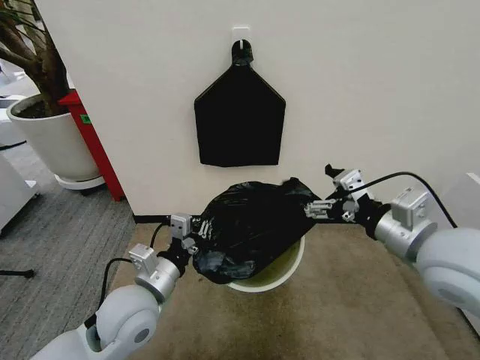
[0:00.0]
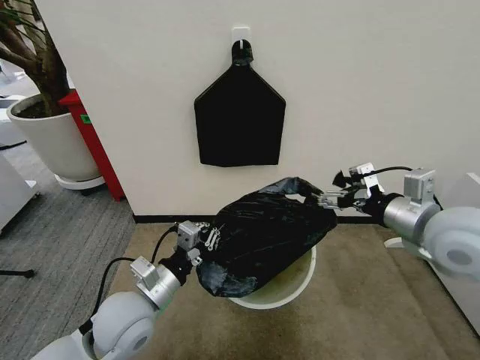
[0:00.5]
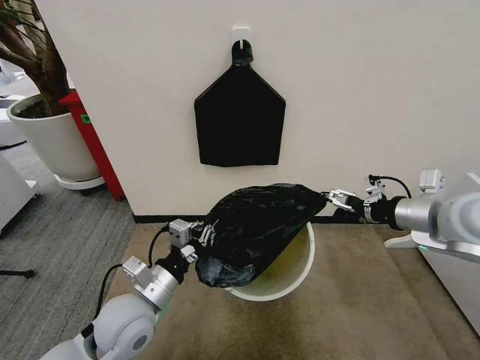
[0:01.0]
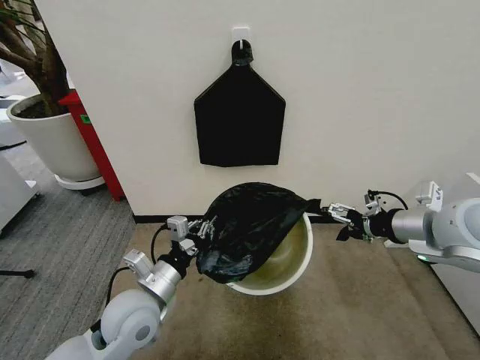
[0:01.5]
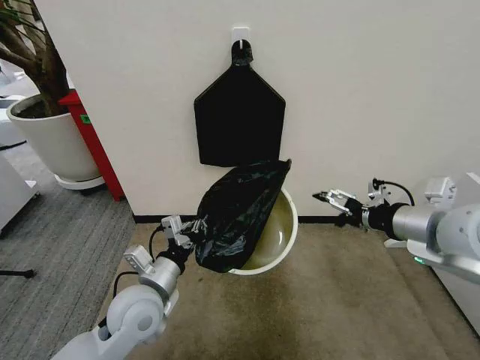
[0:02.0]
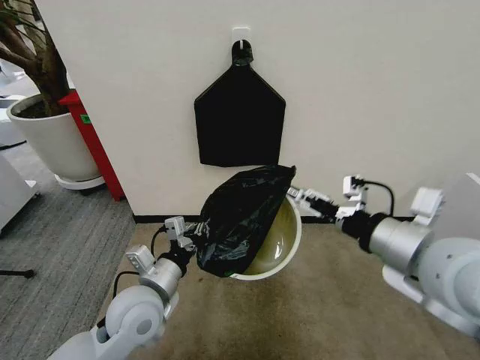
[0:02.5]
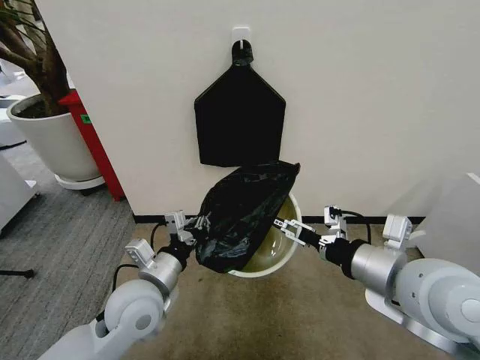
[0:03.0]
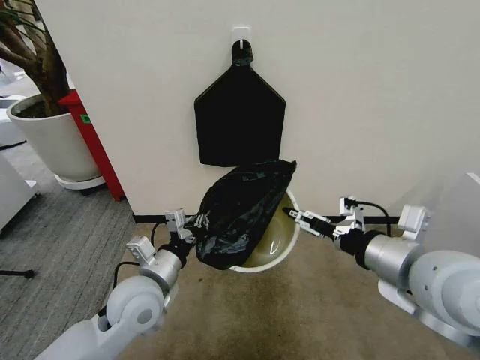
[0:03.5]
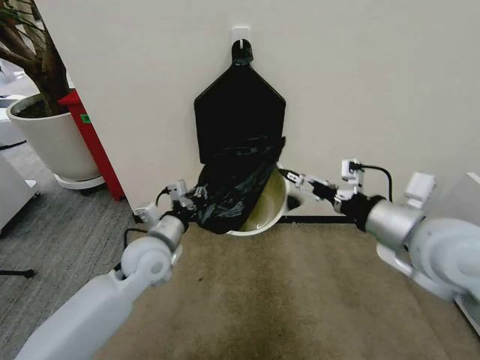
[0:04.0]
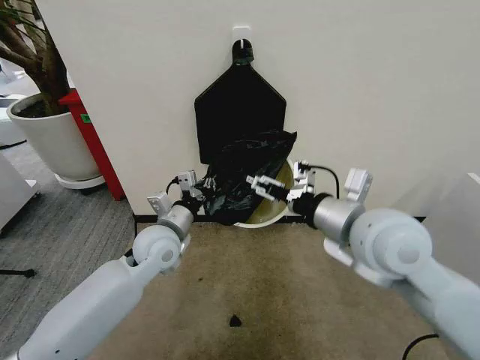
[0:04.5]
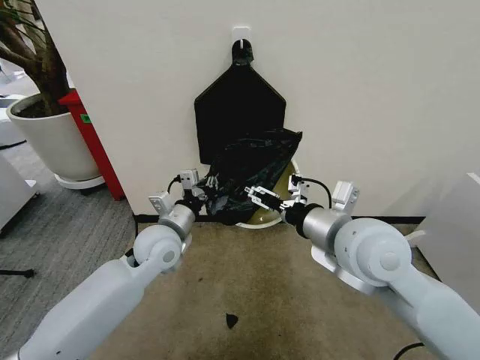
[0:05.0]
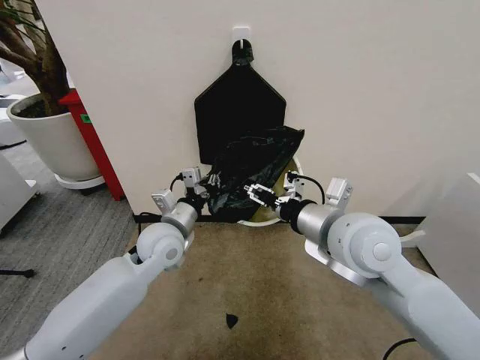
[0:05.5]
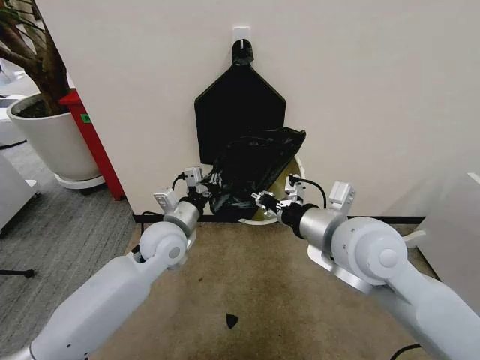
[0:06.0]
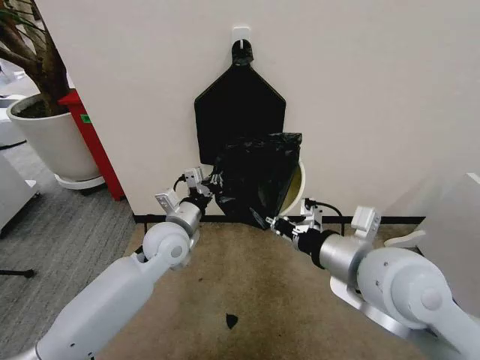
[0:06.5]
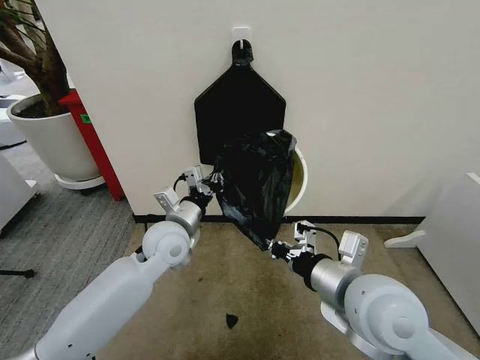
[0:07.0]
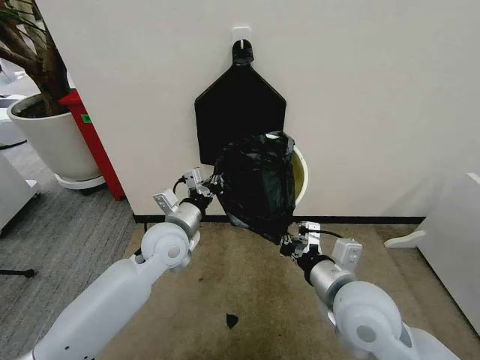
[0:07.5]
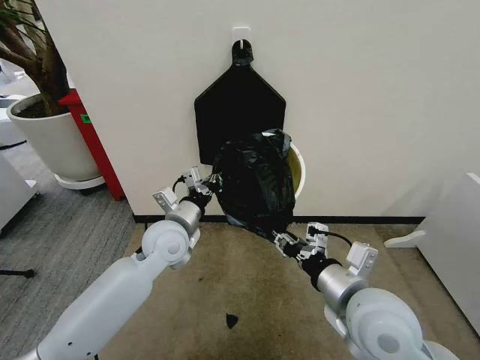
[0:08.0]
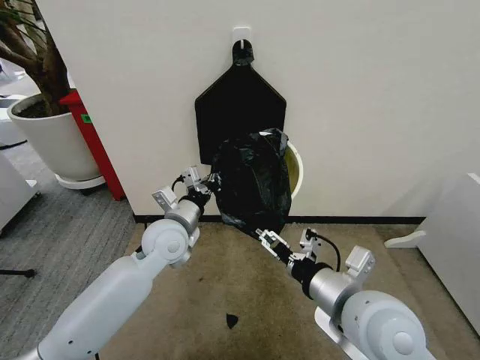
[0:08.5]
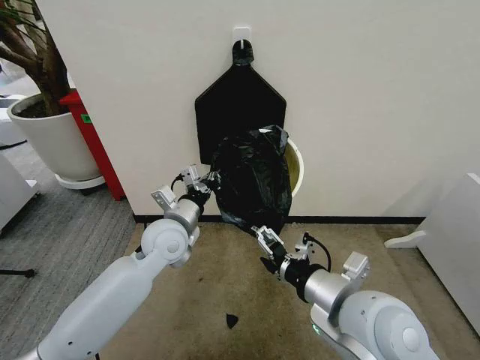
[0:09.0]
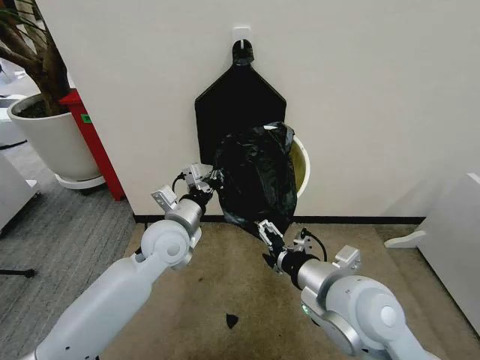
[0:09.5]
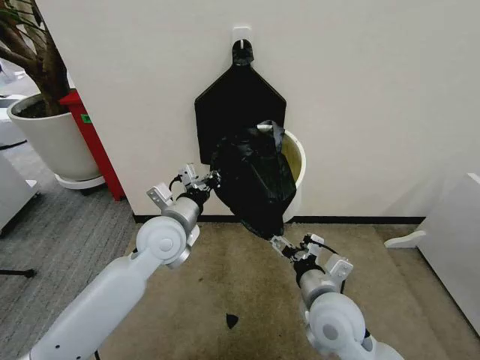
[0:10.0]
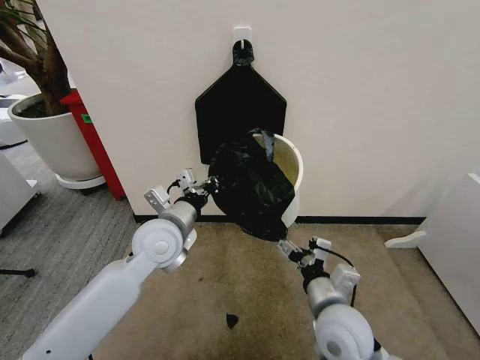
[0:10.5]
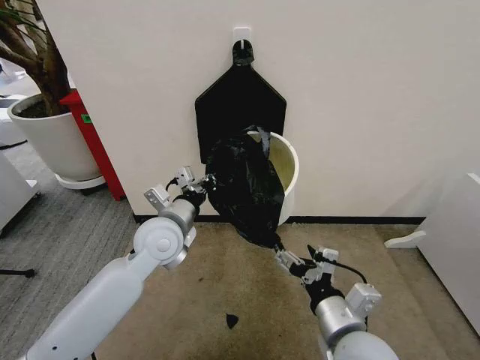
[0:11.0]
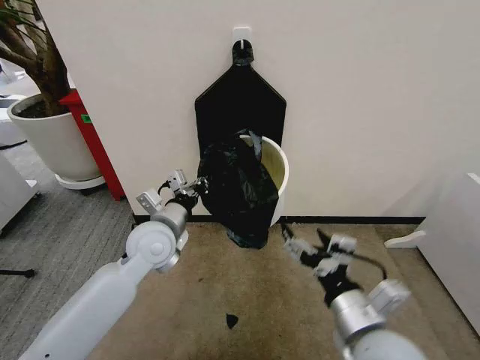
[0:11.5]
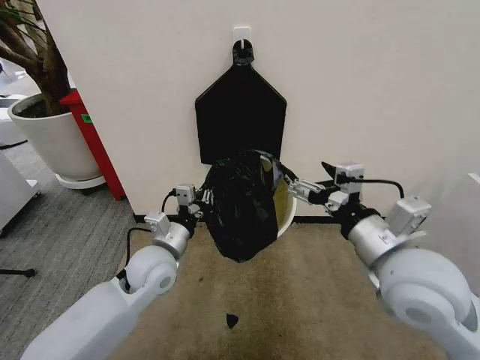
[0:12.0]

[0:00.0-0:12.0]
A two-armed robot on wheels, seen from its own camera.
Task of the whole recording: Place the garbage bag over the trash bin.
0:02.0 to 0:04.0: The left gripper is displaced forward by some 10 cm.
0:04.0 to 0:06.0: The right gripper travels to the left by roughly 10 cm, and closes its fingers.
0:06.0 to 0:08.0: The right gripper goes some 10 cm downward and backward.
0:08.0 to 0:10.0: The right gripper travels downward by roughly 10 cm, and opens.
0:10.0 to 0:12.0: The left gripper moves downward, about 5 cm, while the right gripper moves upward, some 15 cm.

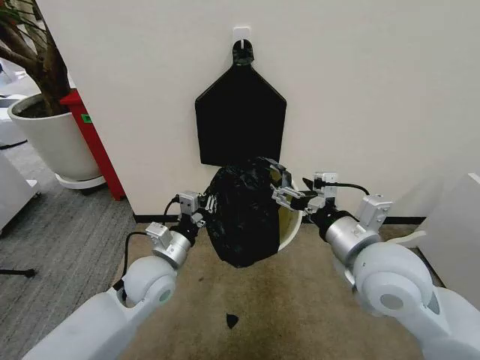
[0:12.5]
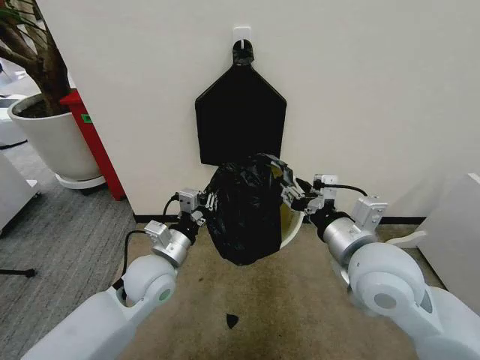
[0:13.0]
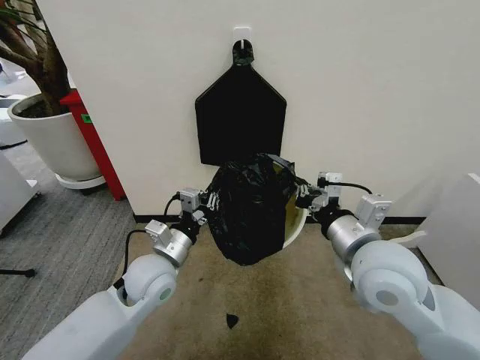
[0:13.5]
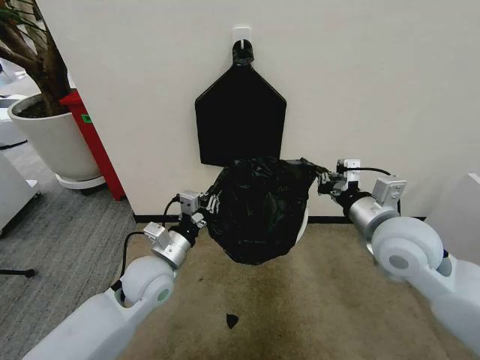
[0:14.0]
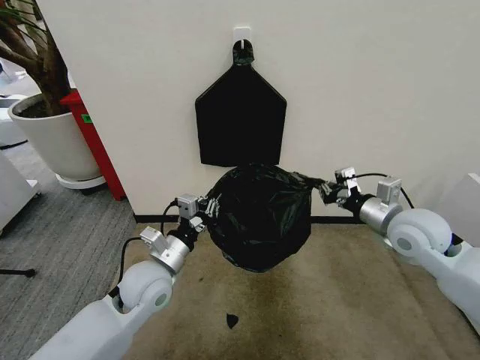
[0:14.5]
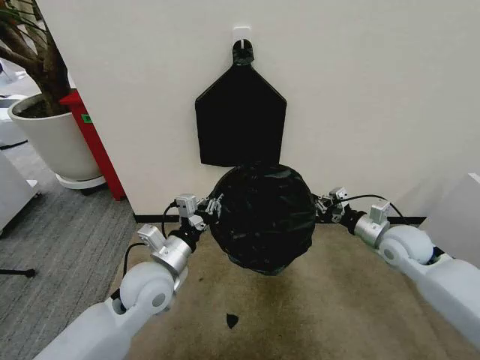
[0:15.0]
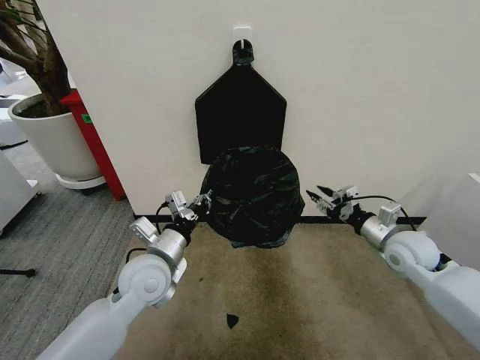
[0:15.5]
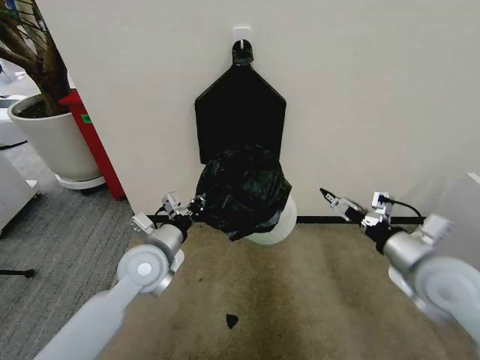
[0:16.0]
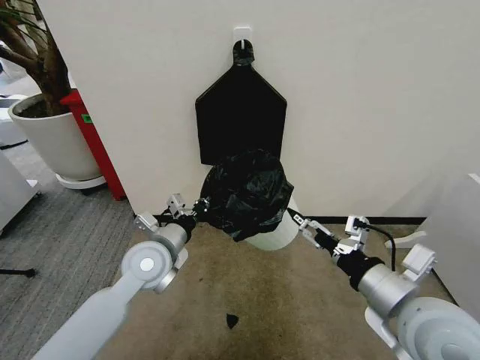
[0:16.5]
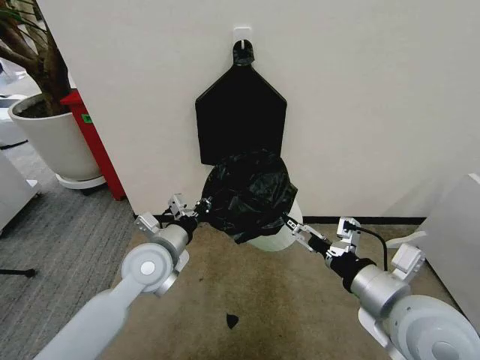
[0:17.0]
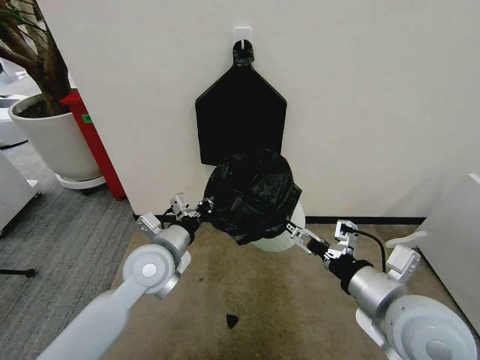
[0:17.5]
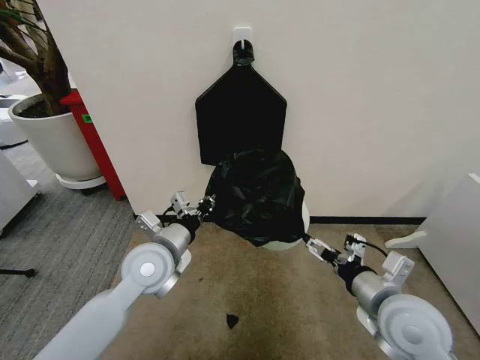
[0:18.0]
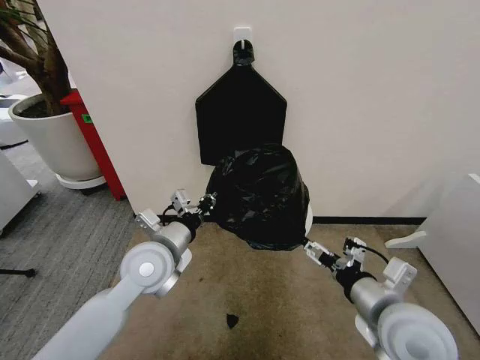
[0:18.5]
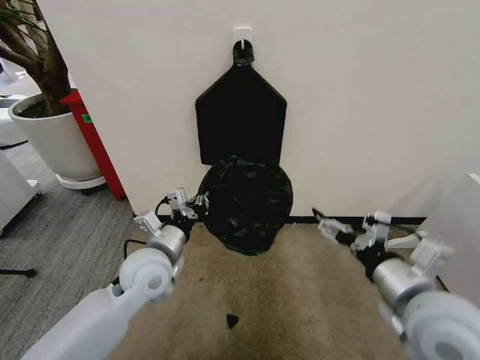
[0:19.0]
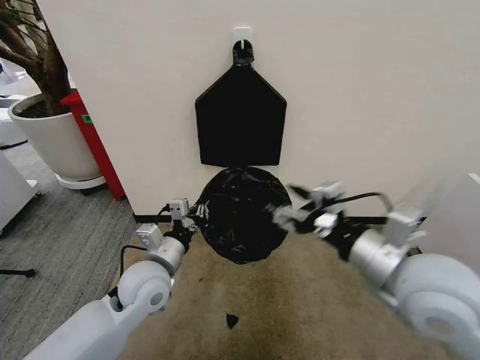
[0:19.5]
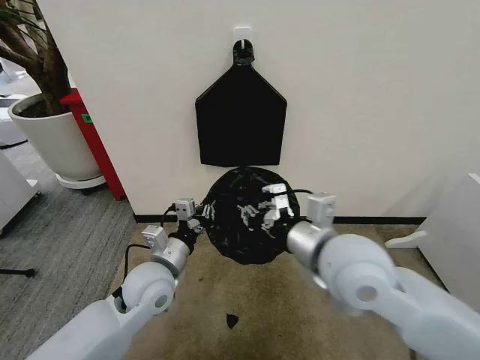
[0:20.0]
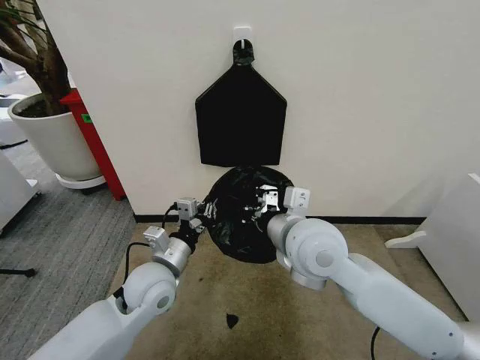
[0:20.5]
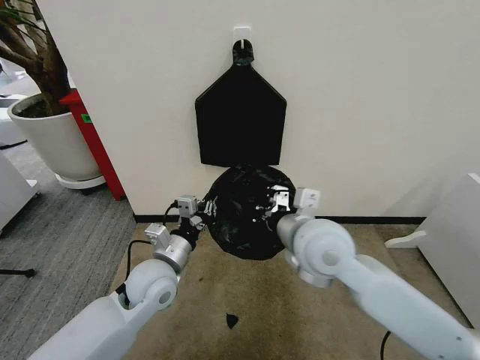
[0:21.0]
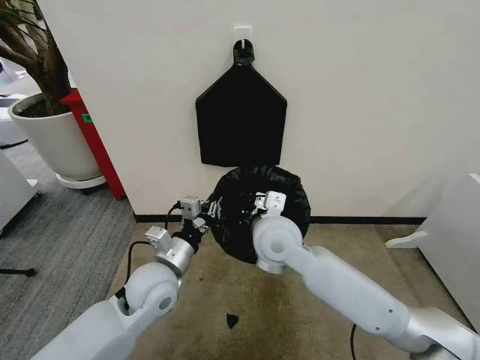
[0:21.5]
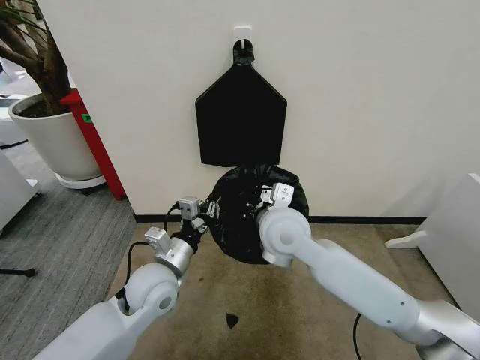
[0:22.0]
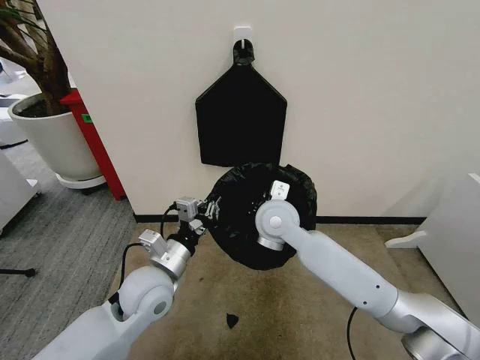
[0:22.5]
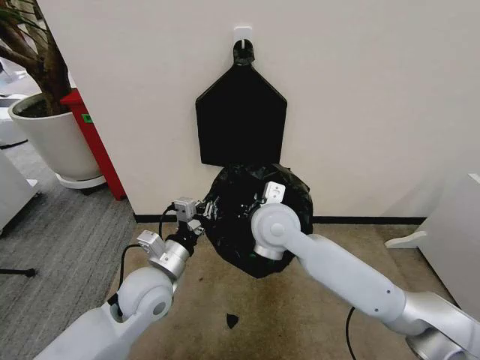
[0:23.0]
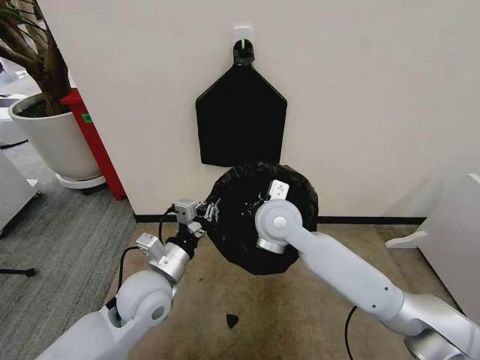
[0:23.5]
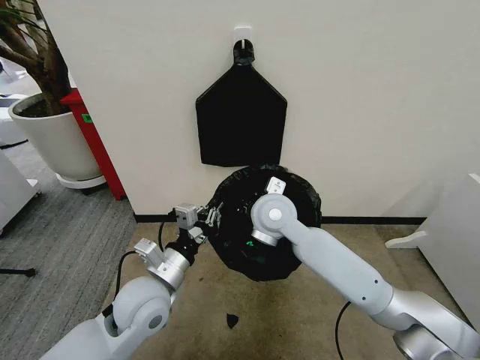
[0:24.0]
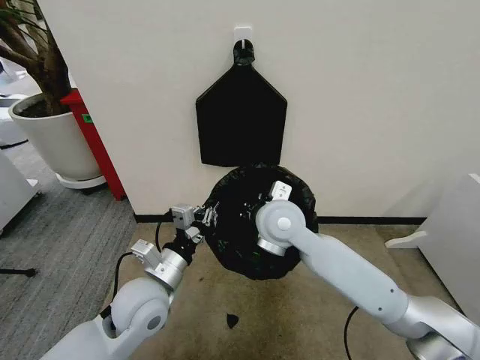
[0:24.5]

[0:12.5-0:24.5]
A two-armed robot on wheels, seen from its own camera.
Task of the whole recording: Place the garbage bag over the trash bin.
0:12.5 to 0:14.5: The right gripper shifts about 20 cm to the right and forward, and closes its fingers.
0:14.5 to 0:16.5: The right gripper is displaced backward and to the left by roughly 20 cm, and opens its fingers.
0:18.5 to 0:20.5: The left gripper is displaced downward by roughly 5 cm, while the right gripper is displaced to the left, forward and upward by about 20 cm, and closes up.
0:20.5 to 0:22.5: The right gripper goes some 10 cm forward and downward.
0:22.5 to 0:24.5: The grippers stay close to where they were, moving slightly.

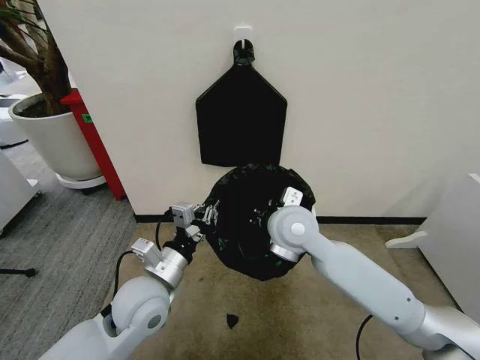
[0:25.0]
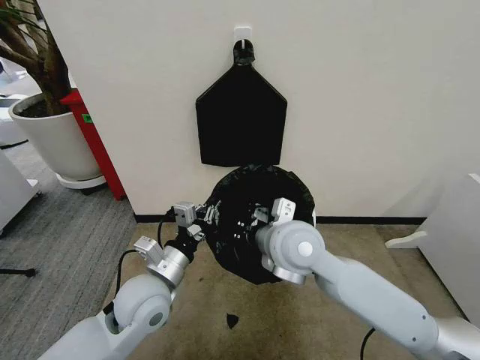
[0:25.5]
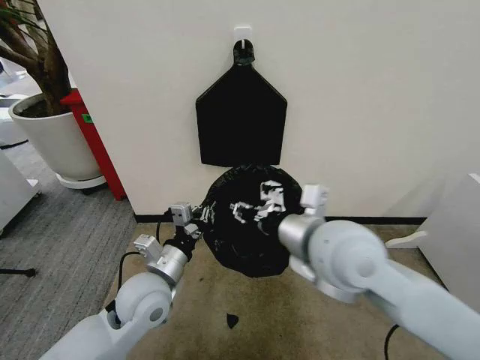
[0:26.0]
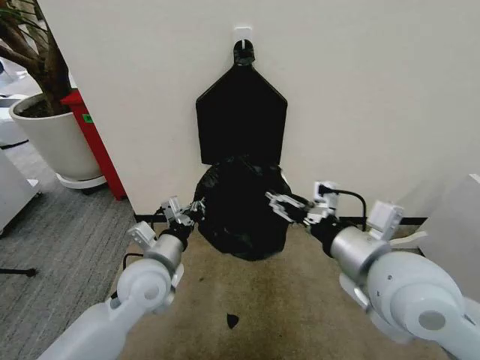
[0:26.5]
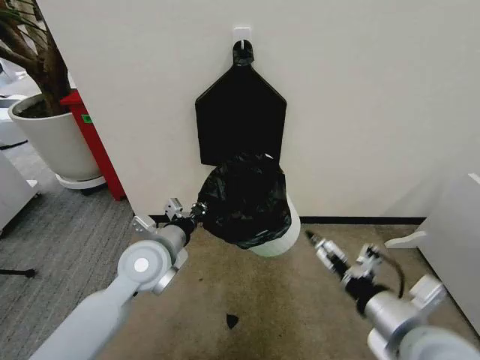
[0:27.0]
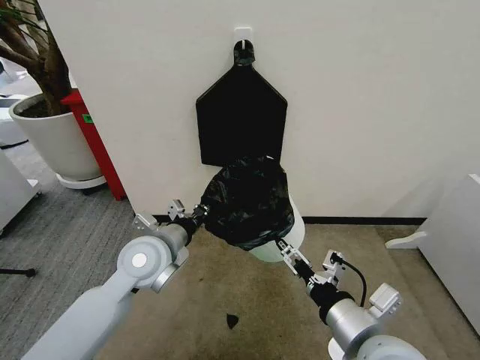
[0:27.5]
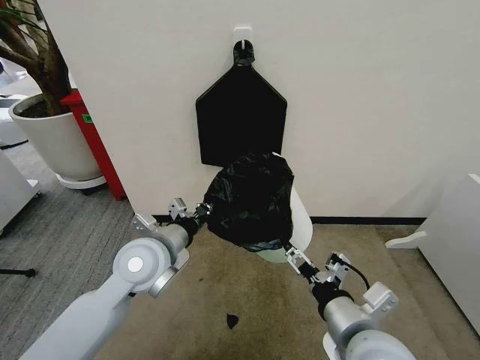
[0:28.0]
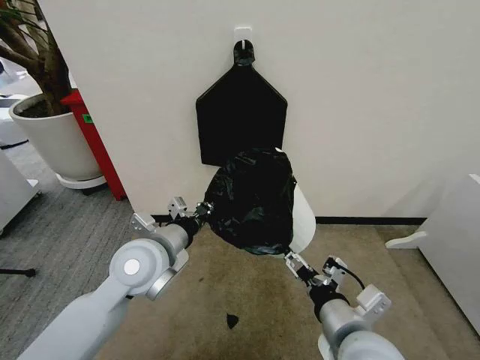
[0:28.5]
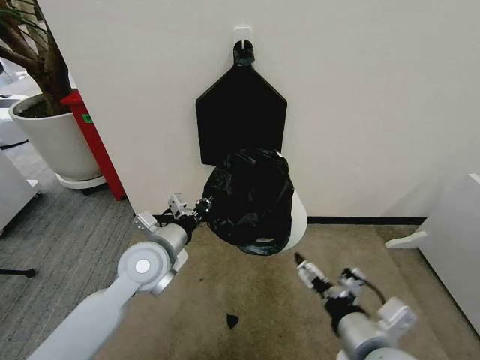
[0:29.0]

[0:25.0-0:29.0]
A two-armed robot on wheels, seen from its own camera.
Task of the whole recording: Place the garbage bag over the trash bin.
0:25.0 to 0:27.0: The right gripper travels backward and to the right by roughly 25 cm, and opens its fingers; the left gripper moves forward, about 5 cm.
0:27.0 to 0:29.0: The right gripper moves to the left, some 5 cm.
